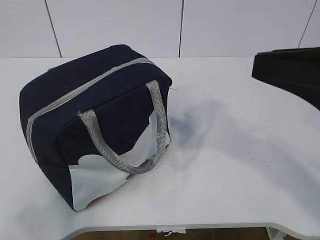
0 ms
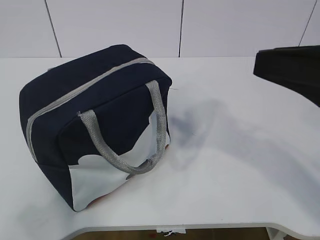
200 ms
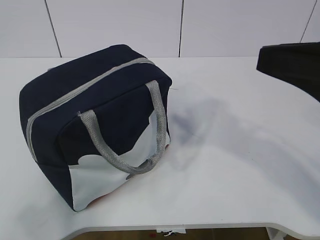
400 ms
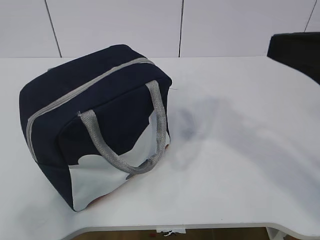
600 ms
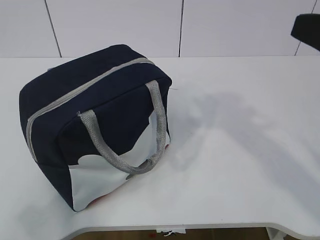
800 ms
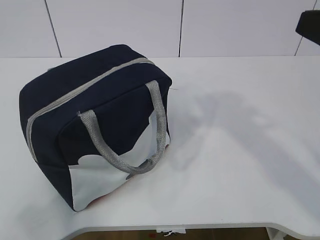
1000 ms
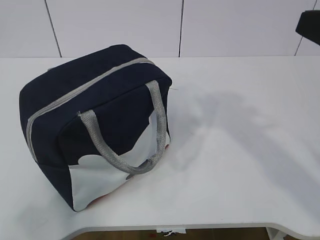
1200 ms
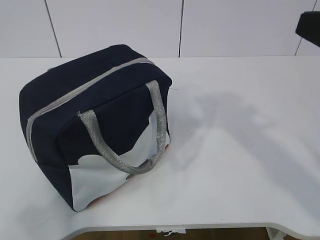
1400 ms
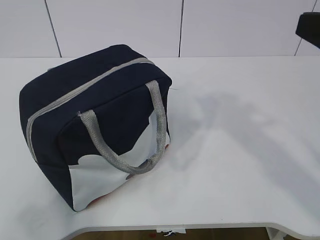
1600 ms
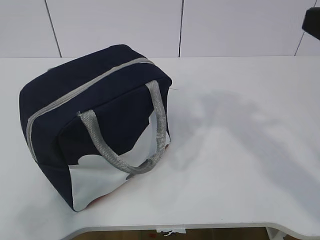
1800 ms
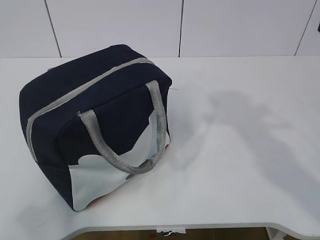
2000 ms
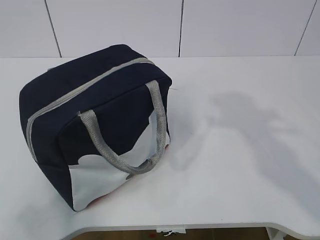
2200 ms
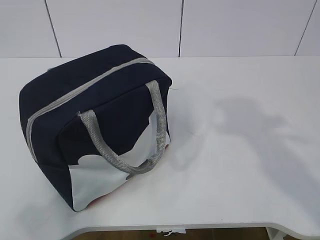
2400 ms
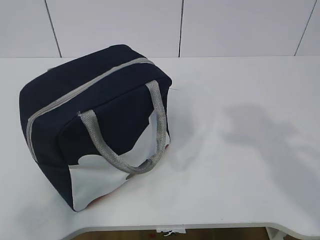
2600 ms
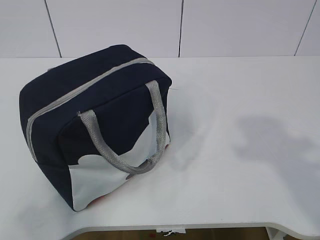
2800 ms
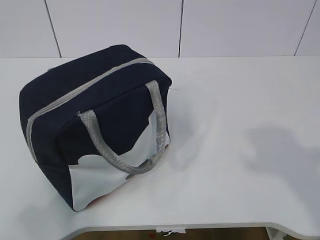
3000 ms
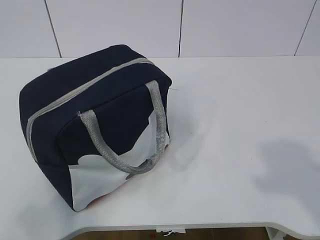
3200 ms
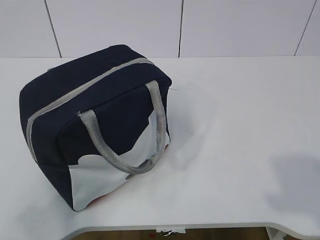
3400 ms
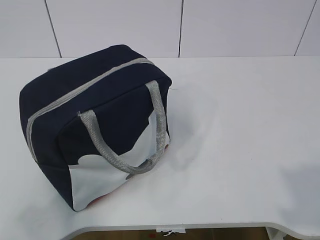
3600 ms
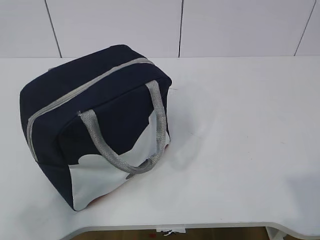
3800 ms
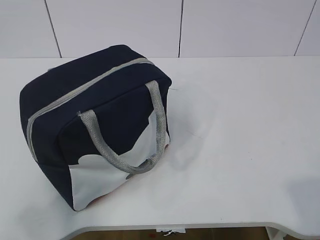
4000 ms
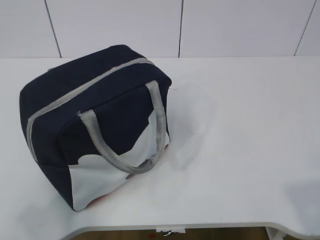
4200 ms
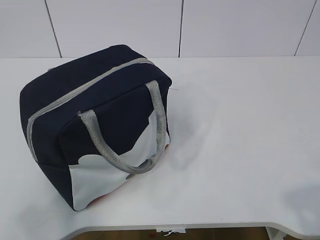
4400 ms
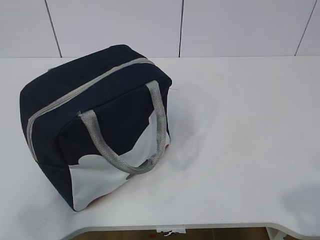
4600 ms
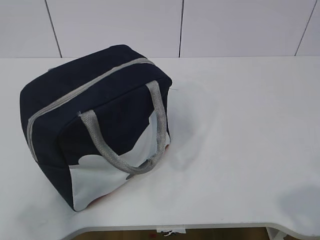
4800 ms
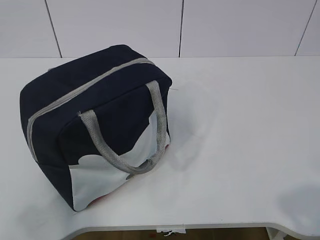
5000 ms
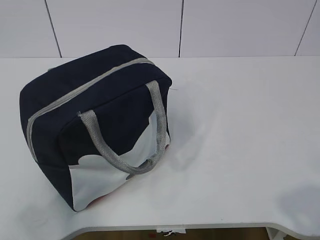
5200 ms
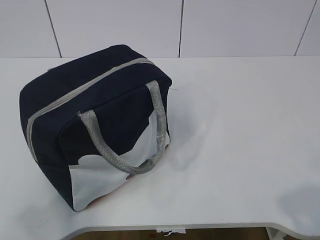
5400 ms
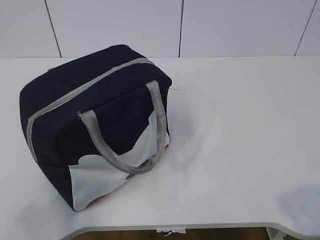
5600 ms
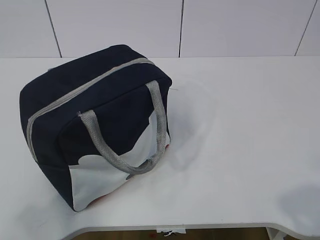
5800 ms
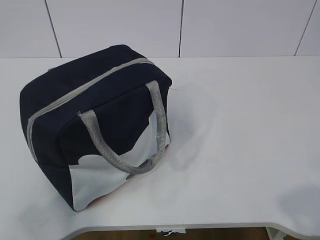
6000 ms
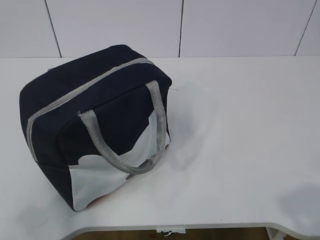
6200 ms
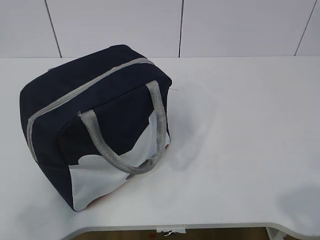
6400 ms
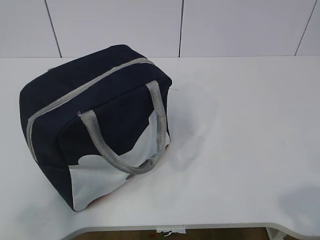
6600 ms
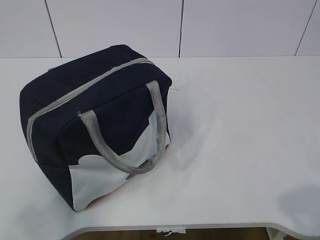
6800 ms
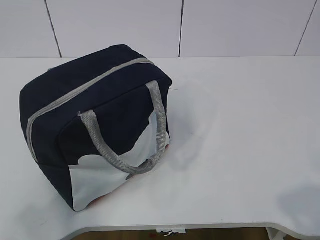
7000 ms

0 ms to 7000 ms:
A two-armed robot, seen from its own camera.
1400 ms to 2800 ms: The right gripper travels backward by approximately 10 cm.
5600 ms to 7000 ms: Neither gripper changes place.
